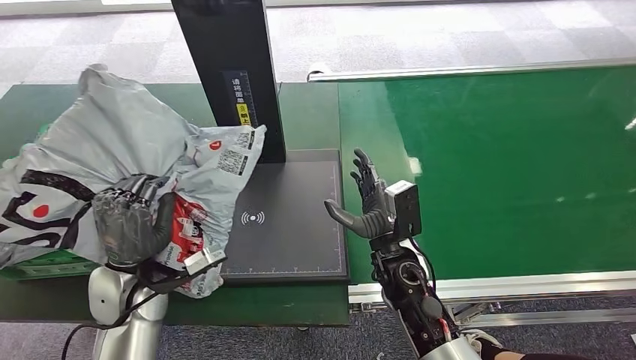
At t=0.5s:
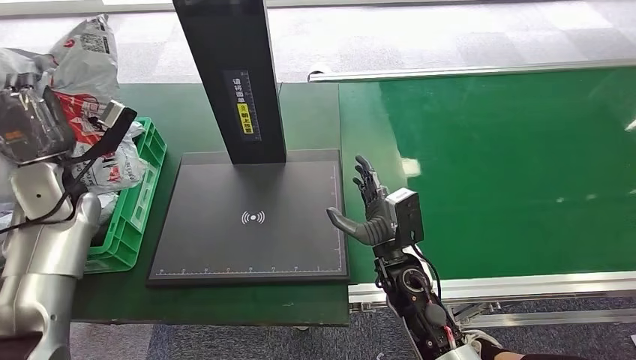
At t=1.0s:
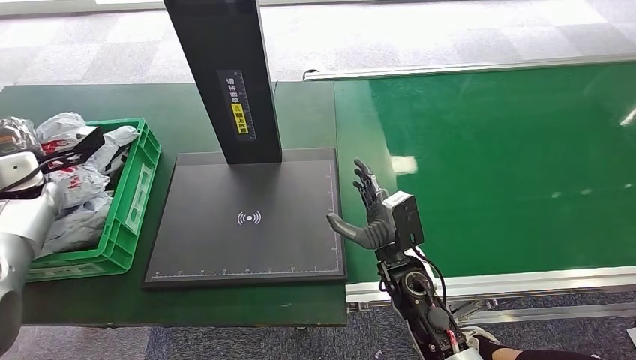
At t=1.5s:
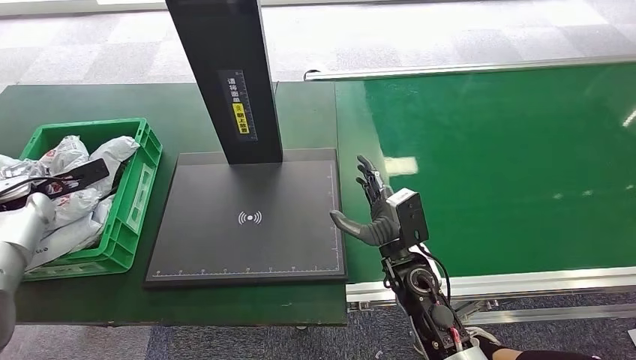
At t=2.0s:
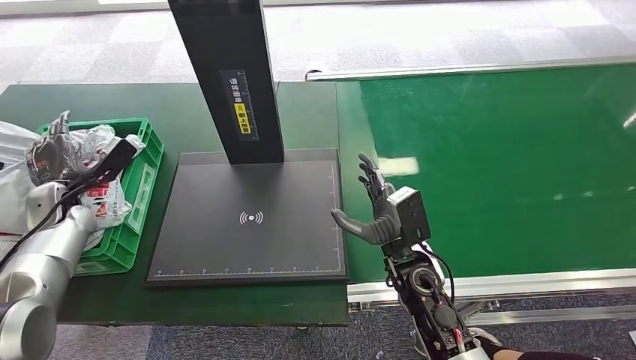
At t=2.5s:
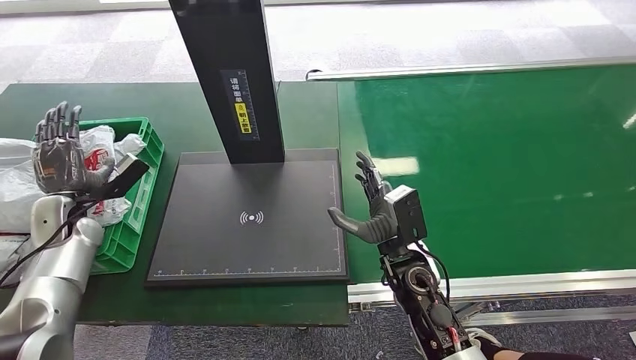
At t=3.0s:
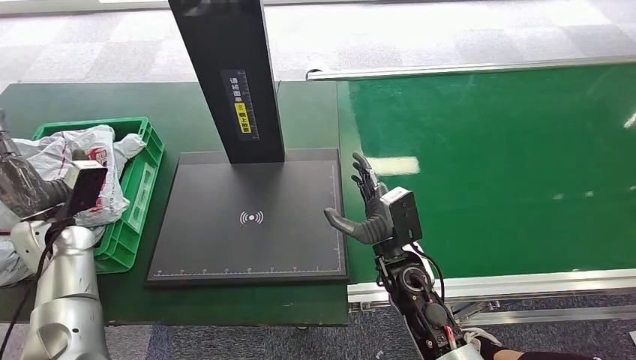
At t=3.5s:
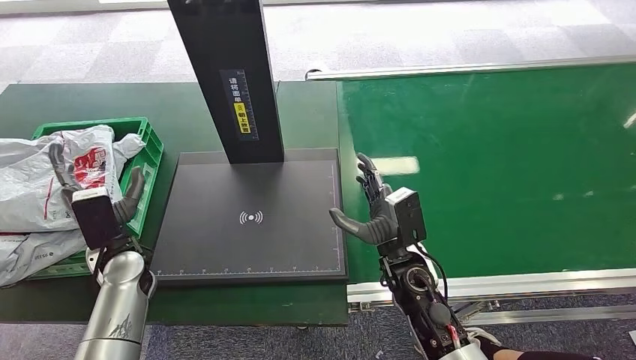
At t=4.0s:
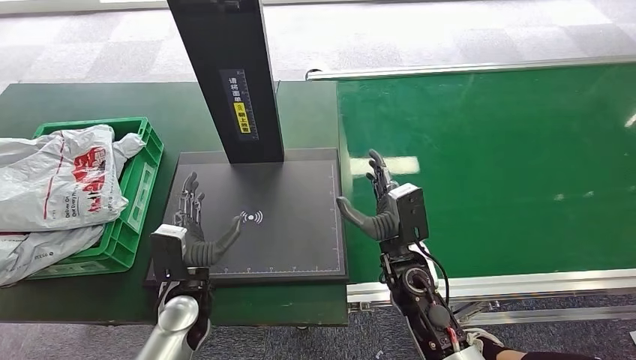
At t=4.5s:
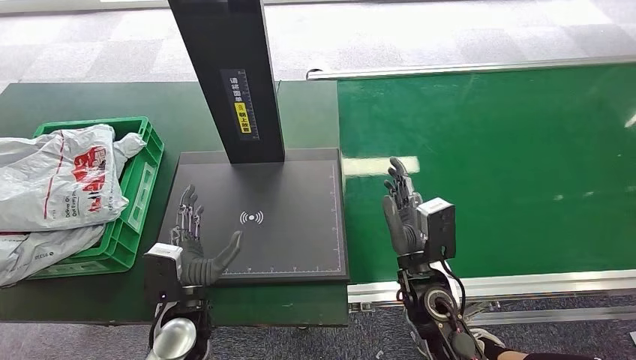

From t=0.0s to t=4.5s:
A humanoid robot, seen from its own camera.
Step, from t=0.5s to t=4.5s: Place the package into the parcel locker.
From t=2.0s to t=4.5s: The left hand moves to the right and backward, about 35 cm.
